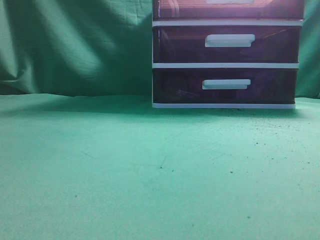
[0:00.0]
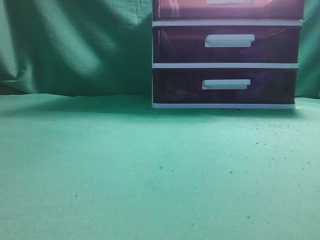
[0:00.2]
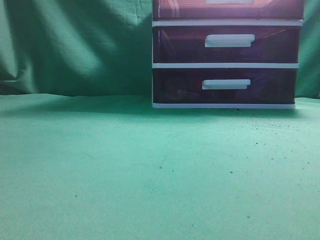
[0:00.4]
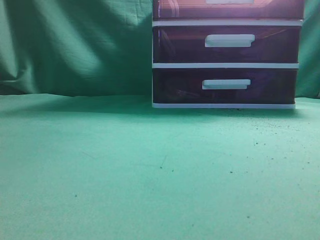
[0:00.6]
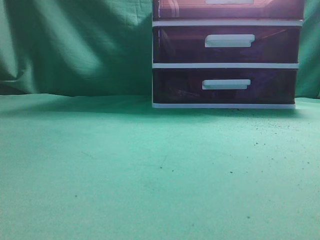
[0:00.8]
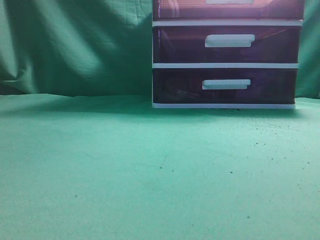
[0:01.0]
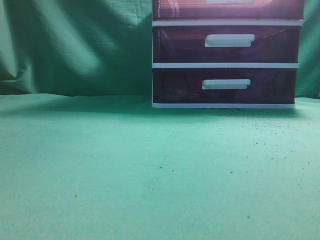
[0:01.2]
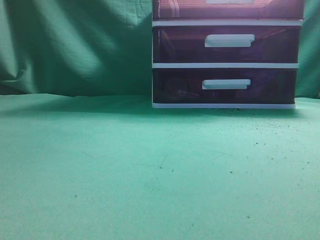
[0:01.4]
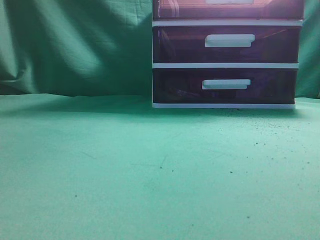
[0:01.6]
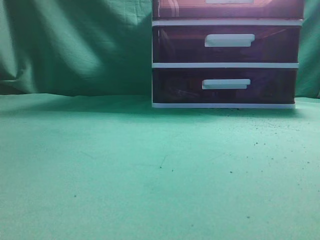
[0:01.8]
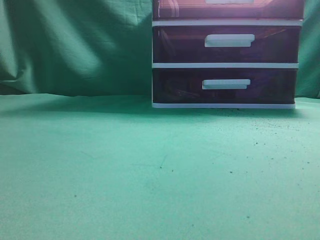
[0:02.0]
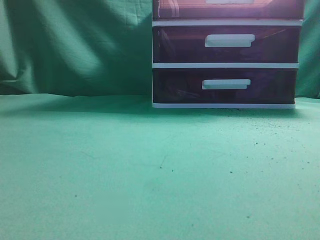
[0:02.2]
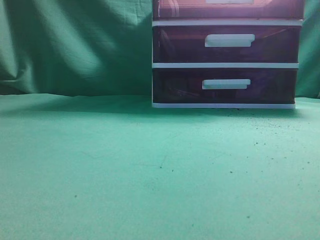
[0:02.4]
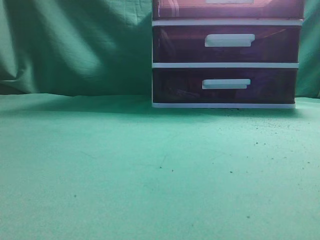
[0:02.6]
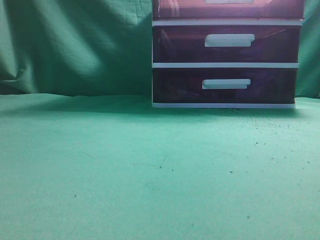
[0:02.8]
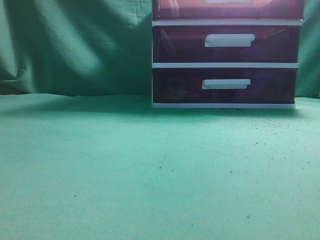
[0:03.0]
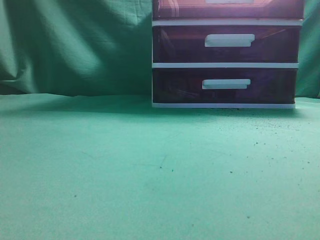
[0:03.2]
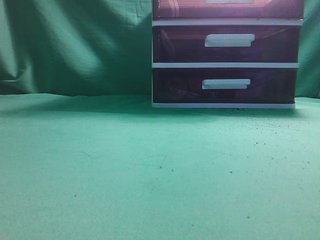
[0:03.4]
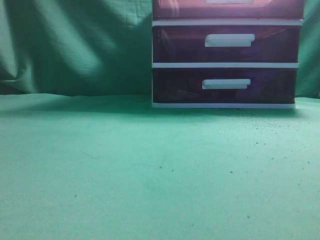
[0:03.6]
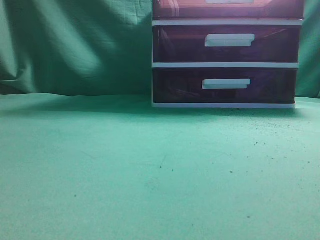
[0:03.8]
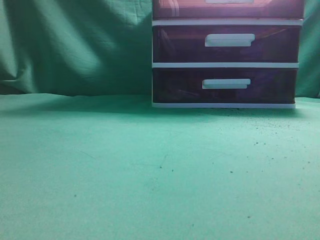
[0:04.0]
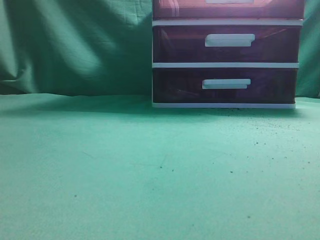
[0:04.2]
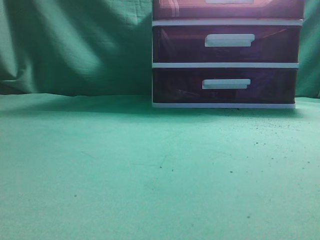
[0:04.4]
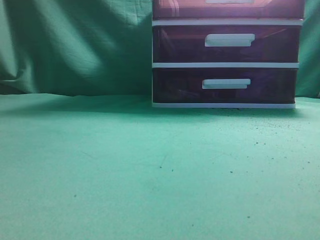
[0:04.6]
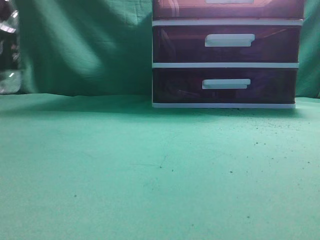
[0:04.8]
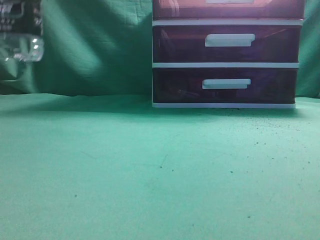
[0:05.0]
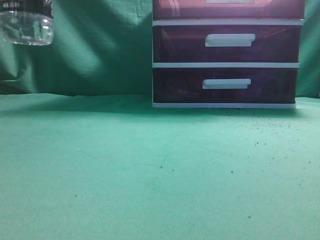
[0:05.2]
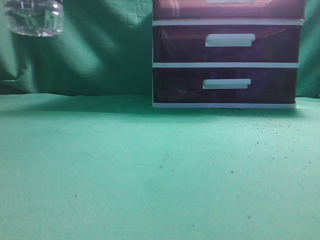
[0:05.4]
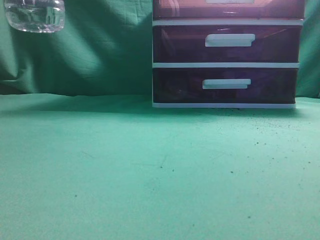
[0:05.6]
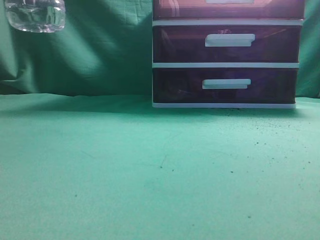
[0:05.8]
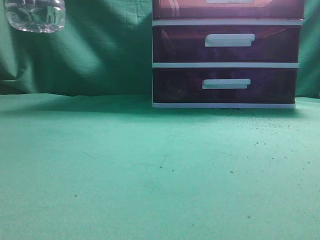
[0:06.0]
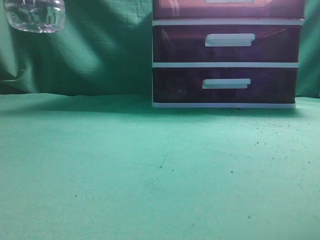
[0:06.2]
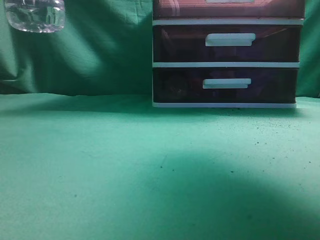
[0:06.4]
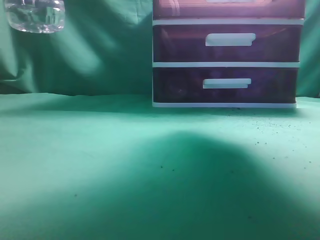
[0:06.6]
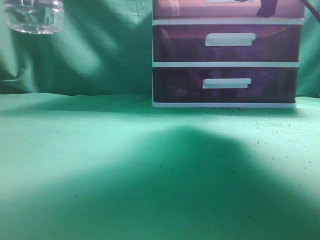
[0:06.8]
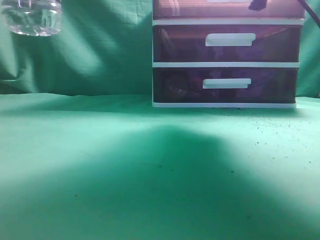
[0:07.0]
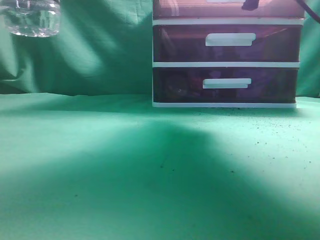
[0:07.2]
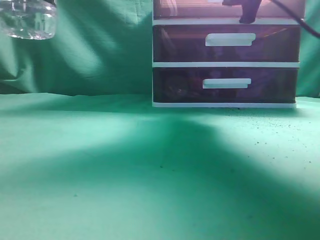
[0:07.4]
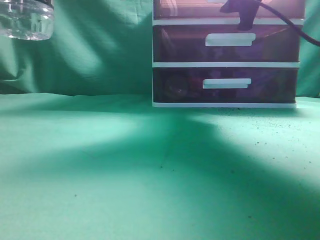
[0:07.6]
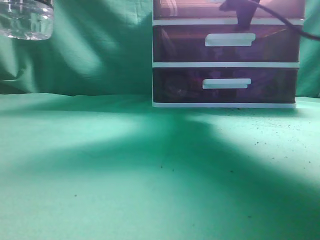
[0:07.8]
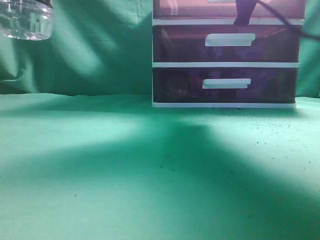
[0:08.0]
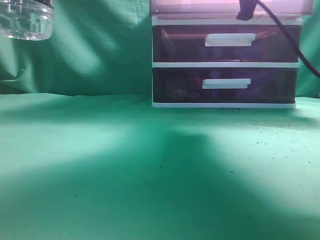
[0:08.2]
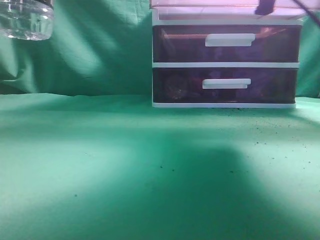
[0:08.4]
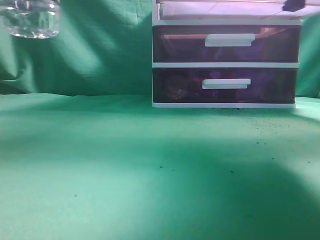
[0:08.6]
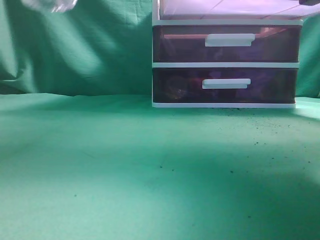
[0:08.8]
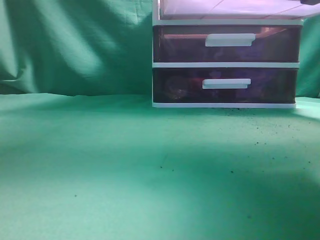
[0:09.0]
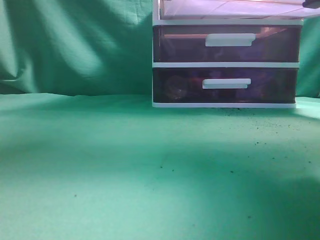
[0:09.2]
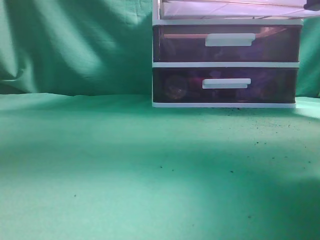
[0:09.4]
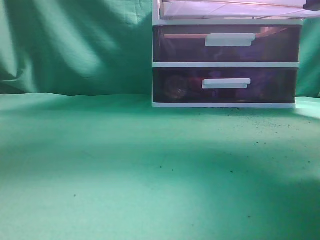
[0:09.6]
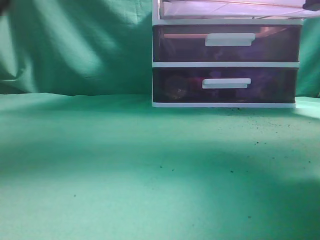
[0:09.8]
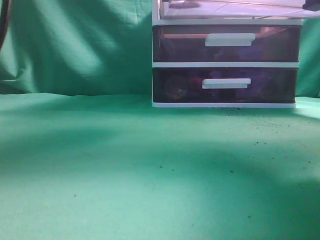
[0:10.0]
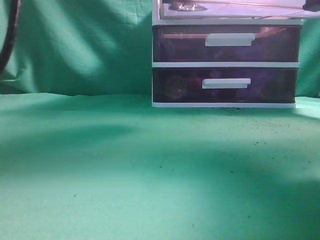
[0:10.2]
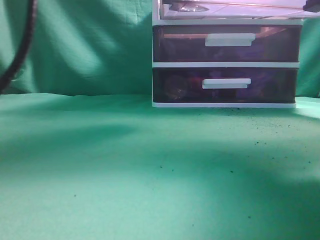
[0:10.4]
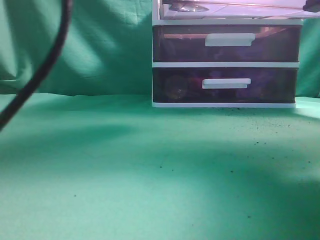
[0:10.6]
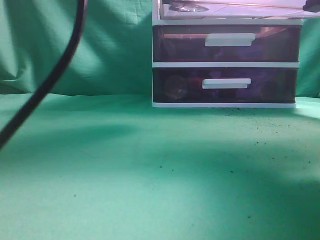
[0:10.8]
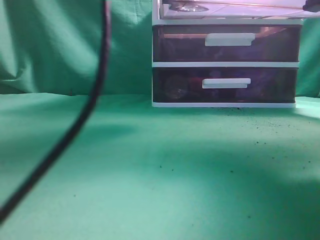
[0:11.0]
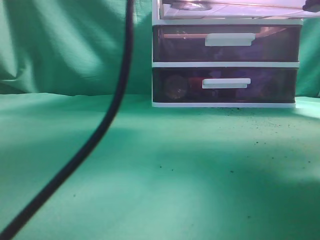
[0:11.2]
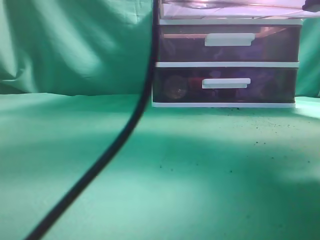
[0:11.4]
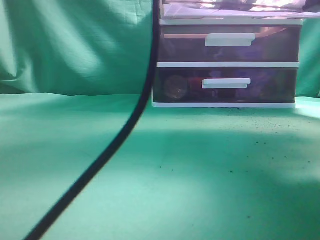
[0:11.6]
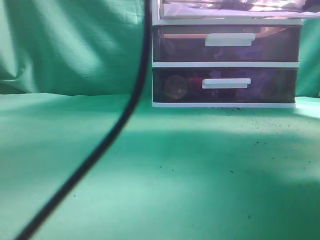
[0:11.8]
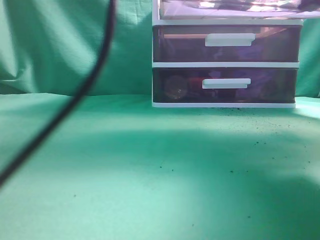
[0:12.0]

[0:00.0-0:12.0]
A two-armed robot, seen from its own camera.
Task of the whole recording: place the water bottle into the drawer.
Step, 0:00.0 to 0:08.6: Open the drawer.
0:04.4 to 0:06.0: The left gripper shifts some 20 cm upward, to the right and backward.
0:06.0 to 0:07.6: The right gripper shifts roughly 25 cm forward, to the left and downward, and opens its fingers.
0:07.6 to 0:09.0: The right gripper is displaced backward by some 15 cm, and closes its fingers. The left gripper travels upward by some 10 cm.
0:09.0 to 0:10.4: The left gripper shifts roughly 20 cm to the right and forward, and opens.
0:10.4 to 0:12.0: The left gripper moves to the right, approximately 5 cm, and closes up.

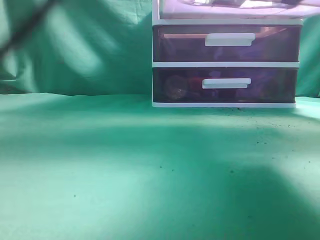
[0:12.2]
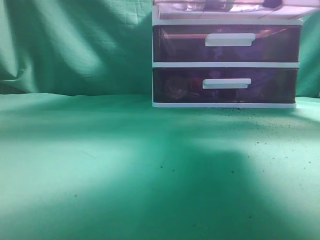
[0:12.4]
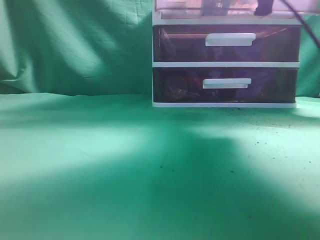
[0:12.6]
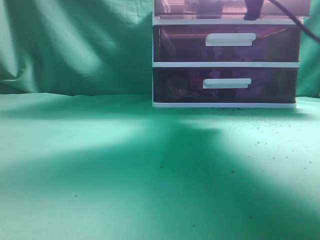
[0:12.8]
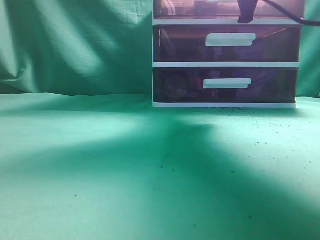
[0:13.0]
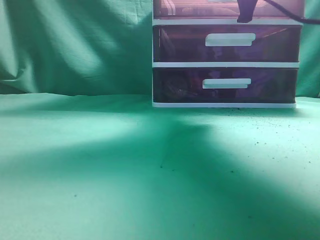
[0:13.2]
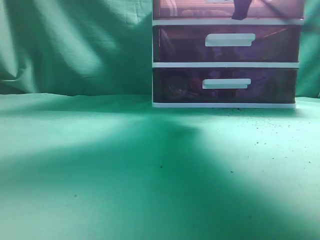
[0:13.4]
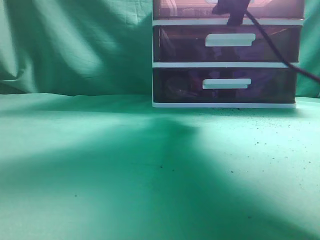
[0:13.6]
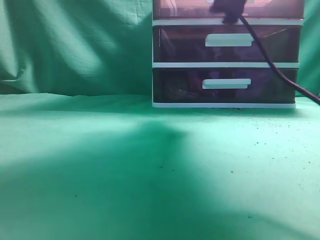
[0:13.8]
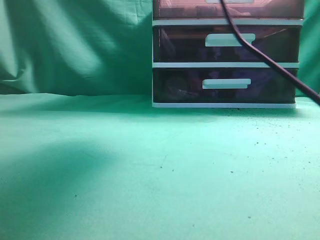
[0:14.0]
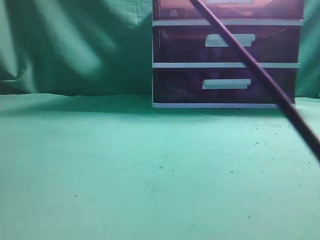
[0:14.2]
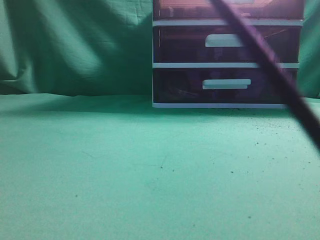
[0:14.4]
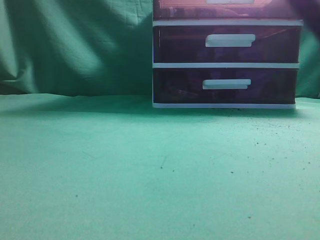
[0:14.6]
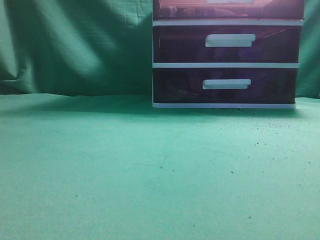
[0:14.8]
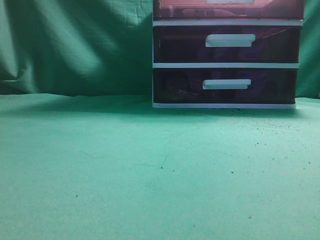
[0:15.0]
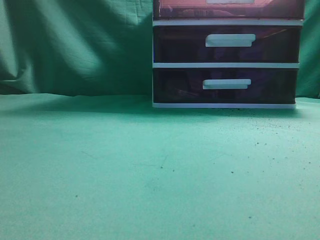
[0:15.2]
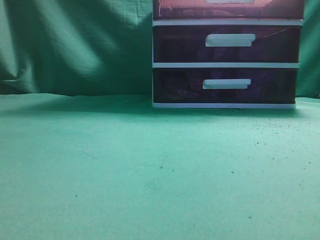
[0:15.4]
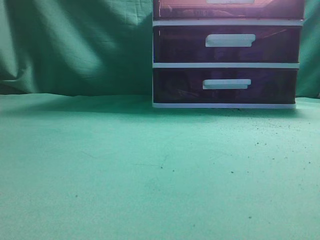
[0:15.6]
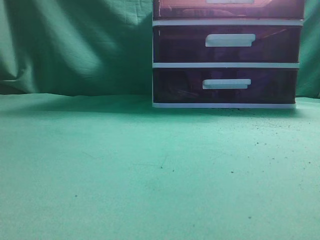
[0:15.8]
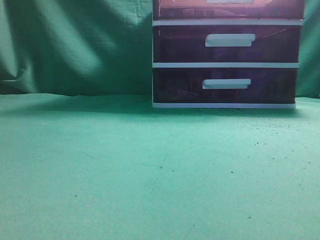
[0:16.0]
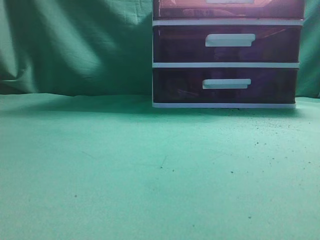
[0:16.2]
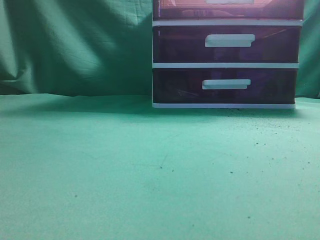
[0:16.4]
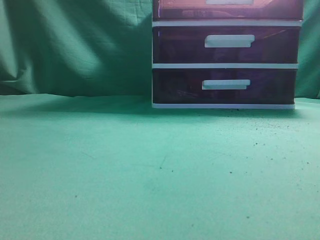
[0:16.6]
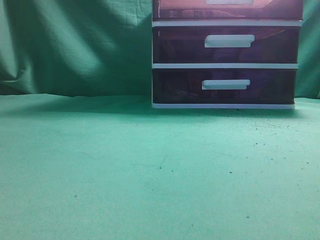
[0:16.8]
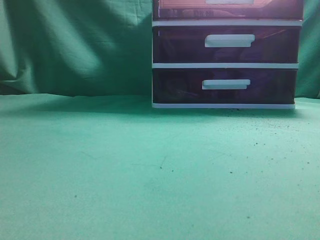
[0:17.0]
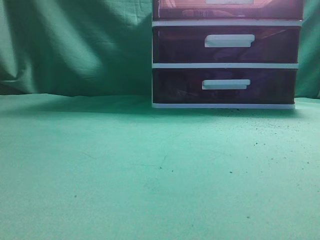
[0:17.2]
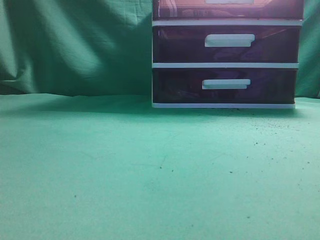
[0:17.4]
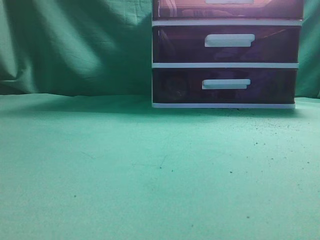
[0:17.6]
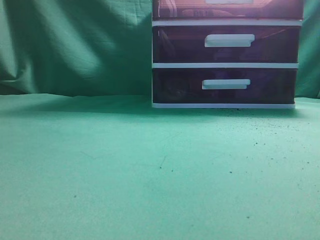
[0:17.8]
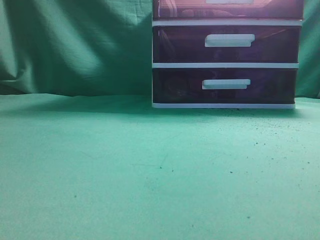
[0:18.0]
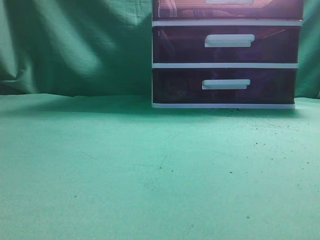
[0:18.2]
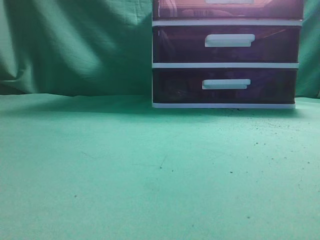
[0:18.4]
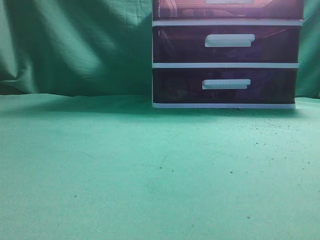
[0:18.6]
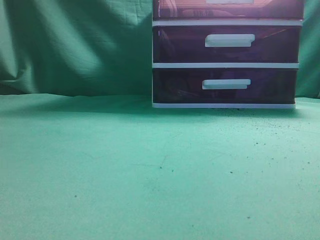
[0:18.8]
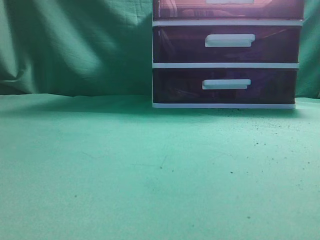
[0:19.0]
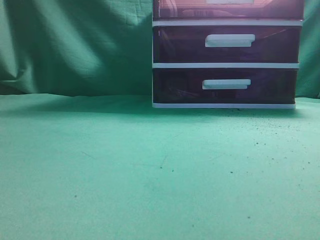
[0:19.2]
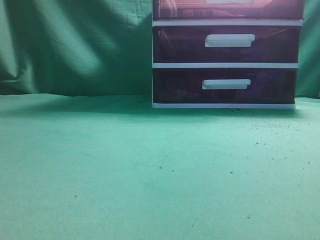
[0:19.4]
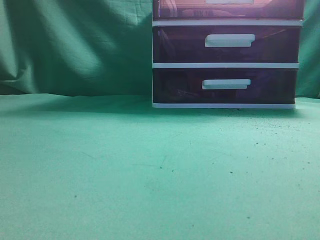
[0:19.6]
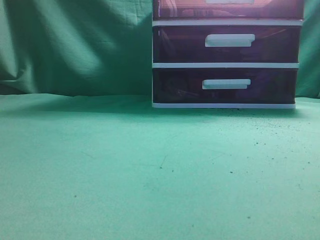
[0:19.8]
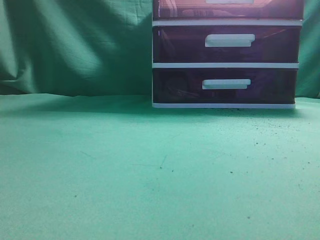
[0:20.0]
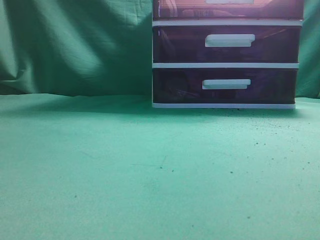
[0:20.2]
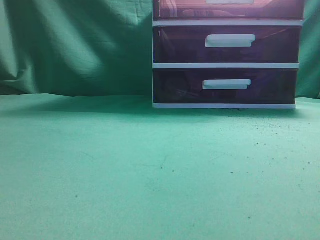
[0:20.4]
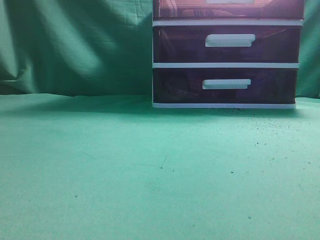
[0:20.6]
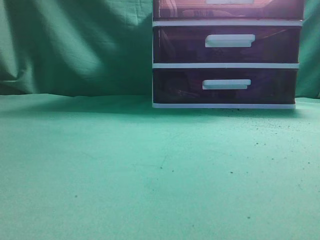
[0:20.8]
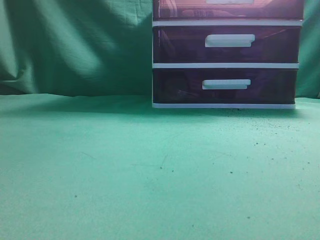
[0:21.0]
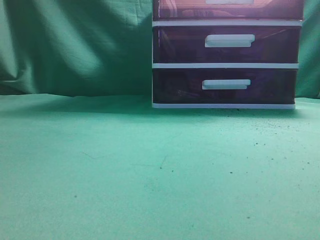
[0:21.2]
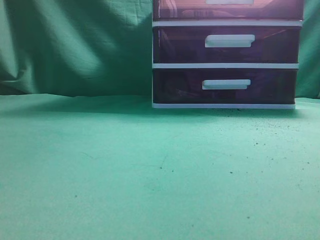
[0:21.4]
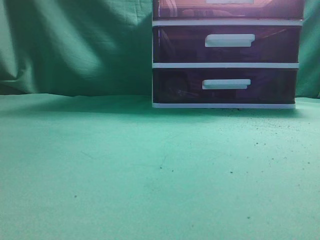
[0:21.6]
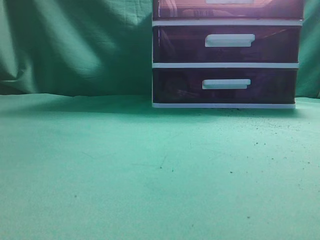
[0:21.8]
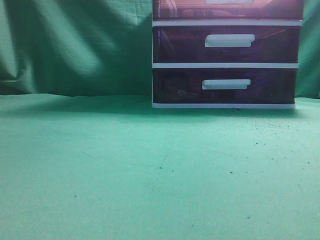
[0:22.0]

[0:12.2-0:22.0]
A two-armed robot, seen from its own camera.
Task of the whole recording: place the water bottle into the drawer.
Step, 0:12.2 to 0:15.6: Close the drawer.
0:12.2 to 0:13.6: The left gripper shifts roughly 15 cm to the left and backward. The right gripper travels forward by approximately 10 cm, and opens.
0:13.6 to 0:15.0: The left gripper moves backward, to the left and downward, about 25 cm, while the right gripper heads backward and to the left, covering some 25 cm, and closes.
